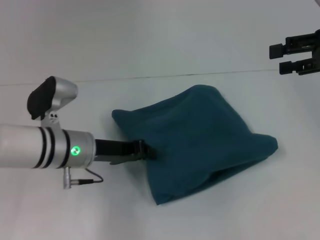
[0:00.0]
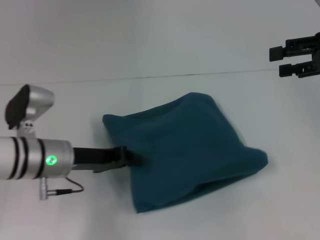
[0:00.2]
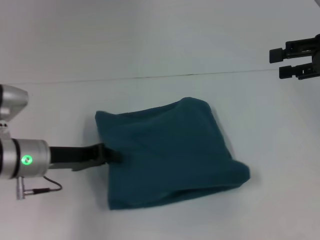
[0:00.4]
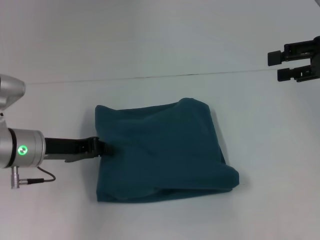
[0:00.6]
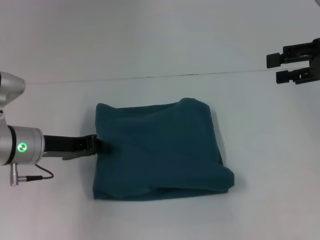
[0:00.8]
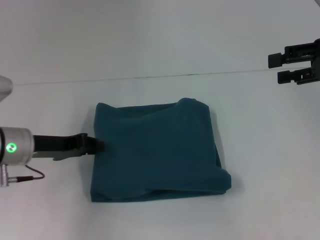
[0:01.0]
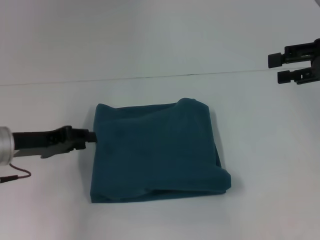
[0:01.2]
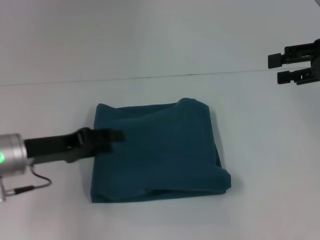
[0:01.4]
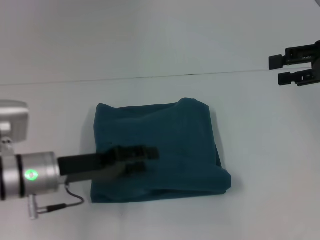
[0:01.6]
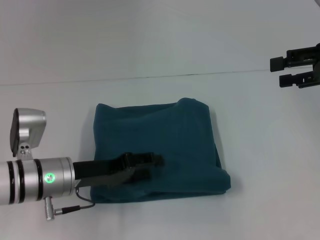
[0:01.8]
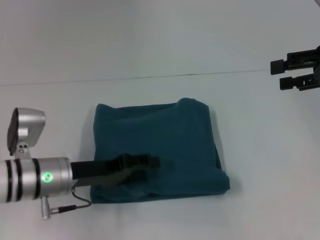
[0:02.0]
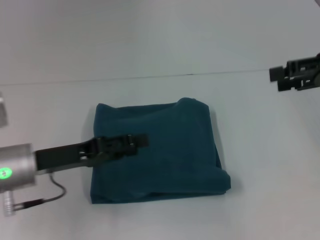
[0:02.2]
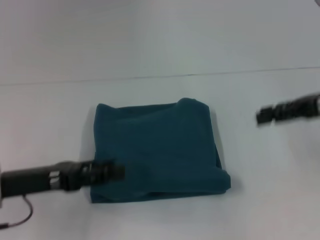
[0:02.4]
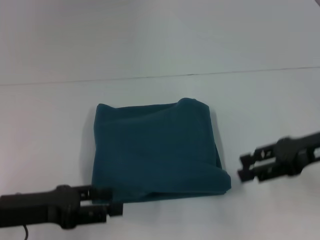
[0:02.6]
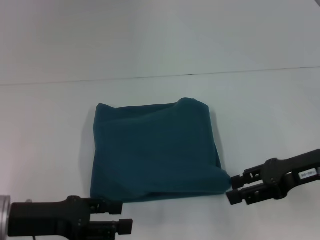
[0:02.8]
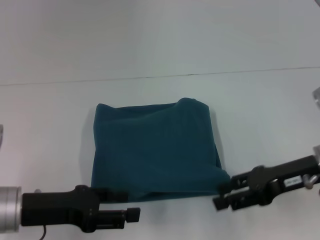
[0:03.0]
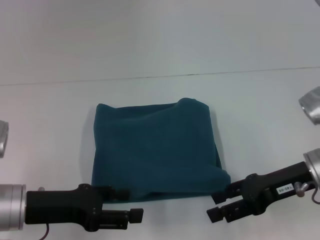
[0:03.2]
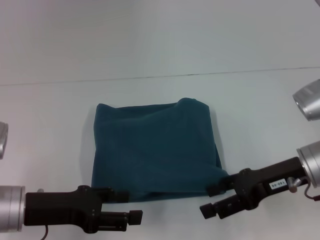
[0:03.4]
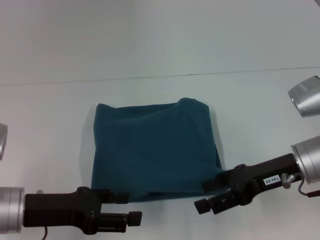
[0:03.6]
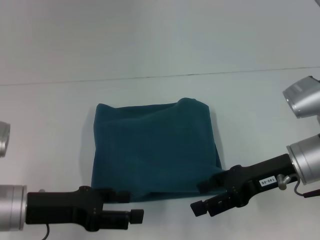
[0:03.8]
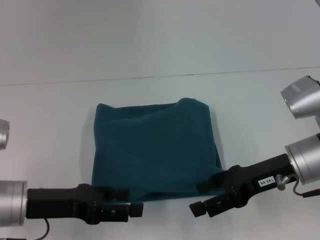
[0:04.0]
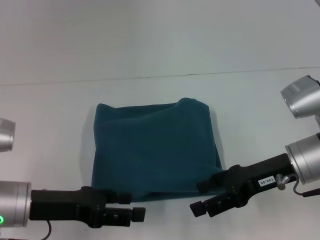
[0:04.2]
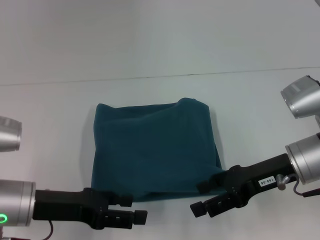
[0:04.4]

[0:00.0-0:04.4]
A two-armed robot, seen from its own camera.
0:00.0 to 0:01.4: The left gripper heads to the left, covering some 10 cm, and opens.
0:01.4 to 0:03.0: The left gripper is displaced backward by about 5 cm, and reaches some 5 cm to the right, then returns. The right gripper goes approximately 15 cm downward, to the left and backward.
0:03.0 to 0:04.4: There are only small adjustments of the grippers.
